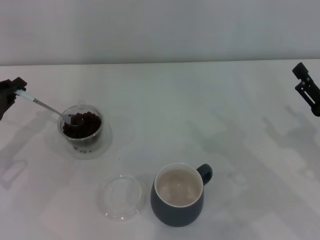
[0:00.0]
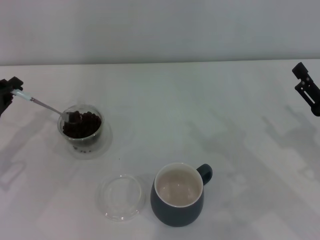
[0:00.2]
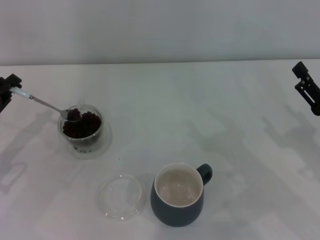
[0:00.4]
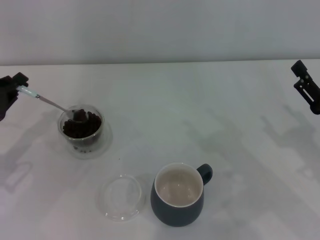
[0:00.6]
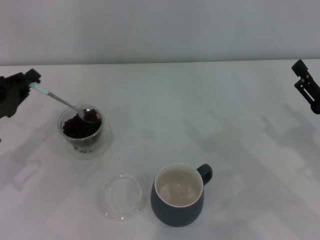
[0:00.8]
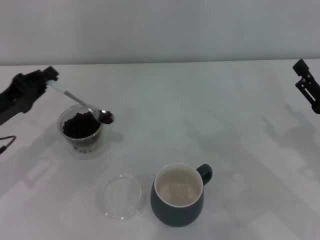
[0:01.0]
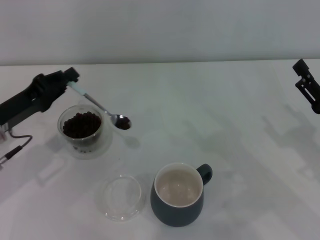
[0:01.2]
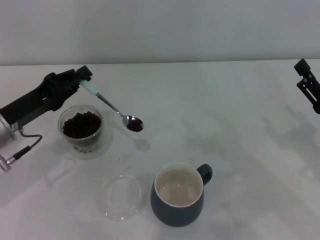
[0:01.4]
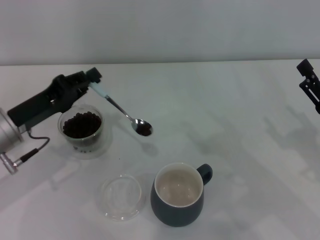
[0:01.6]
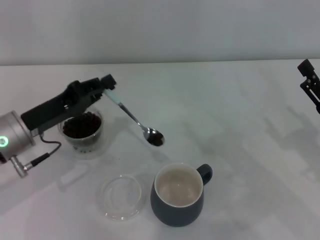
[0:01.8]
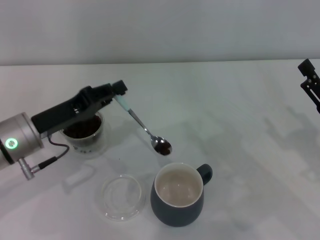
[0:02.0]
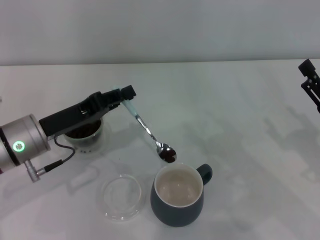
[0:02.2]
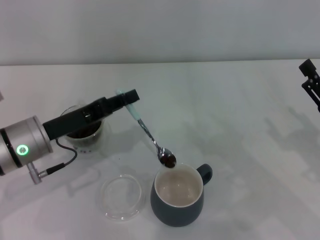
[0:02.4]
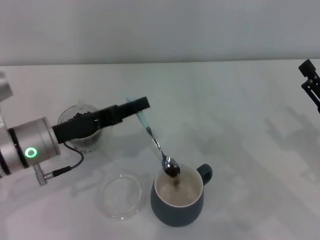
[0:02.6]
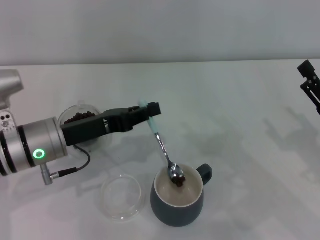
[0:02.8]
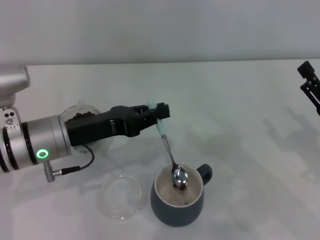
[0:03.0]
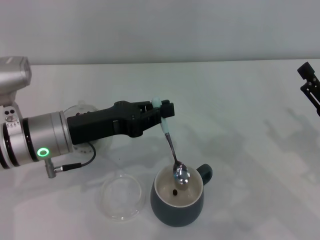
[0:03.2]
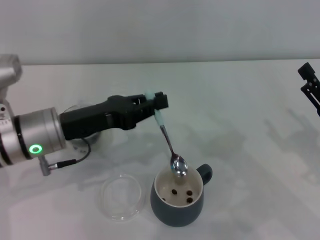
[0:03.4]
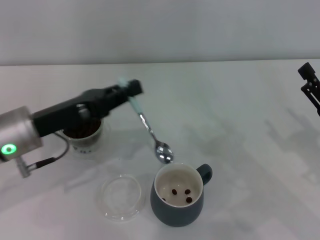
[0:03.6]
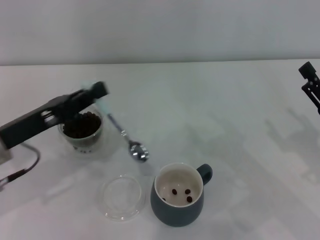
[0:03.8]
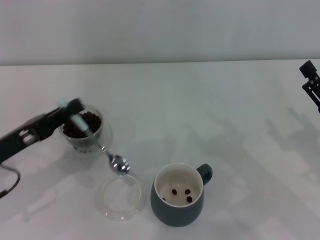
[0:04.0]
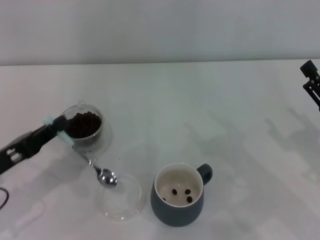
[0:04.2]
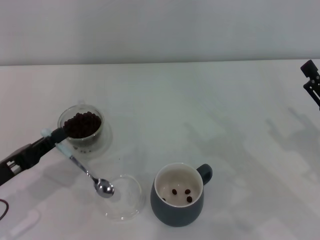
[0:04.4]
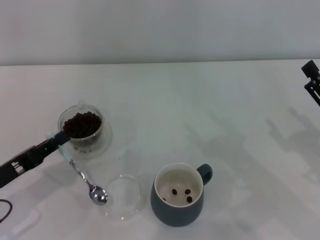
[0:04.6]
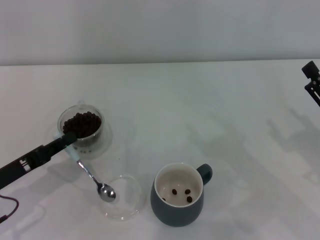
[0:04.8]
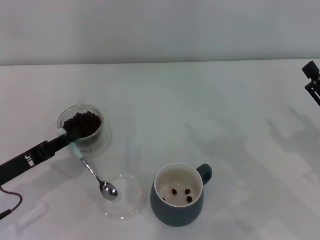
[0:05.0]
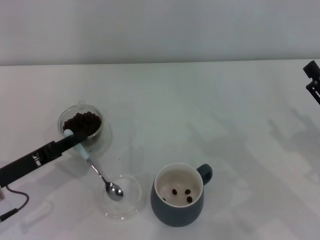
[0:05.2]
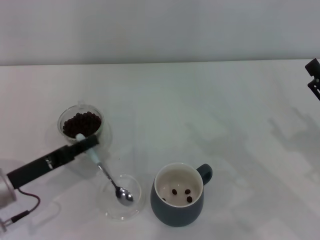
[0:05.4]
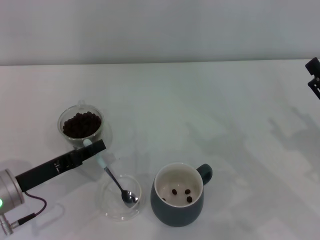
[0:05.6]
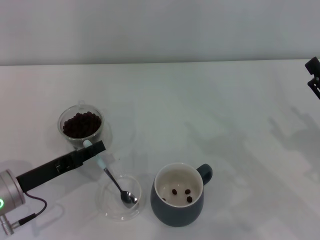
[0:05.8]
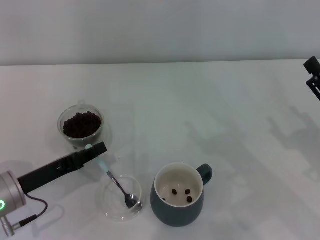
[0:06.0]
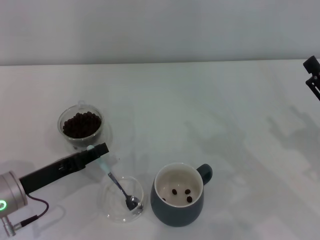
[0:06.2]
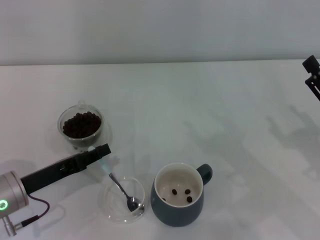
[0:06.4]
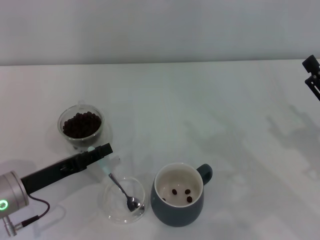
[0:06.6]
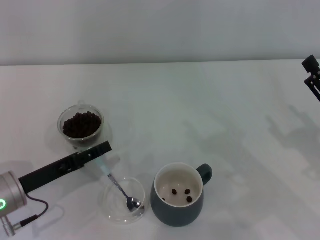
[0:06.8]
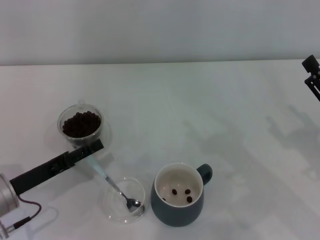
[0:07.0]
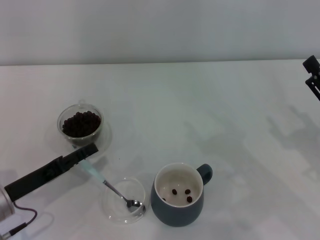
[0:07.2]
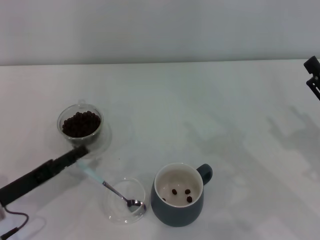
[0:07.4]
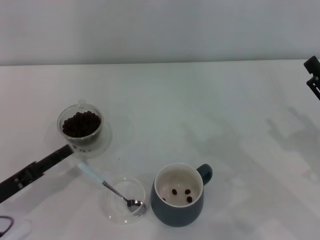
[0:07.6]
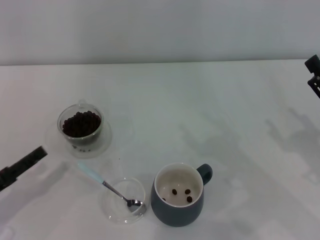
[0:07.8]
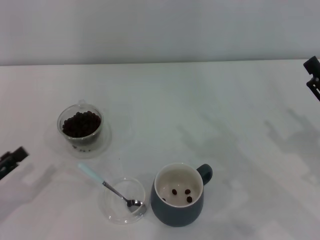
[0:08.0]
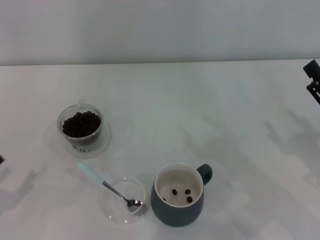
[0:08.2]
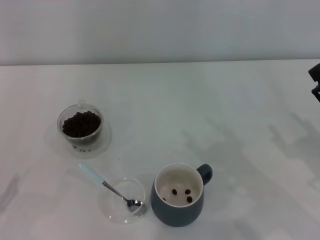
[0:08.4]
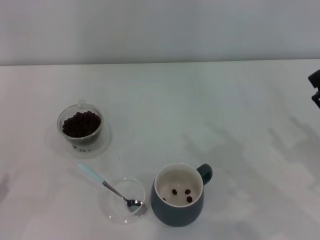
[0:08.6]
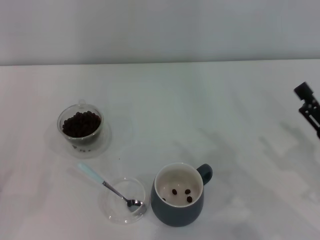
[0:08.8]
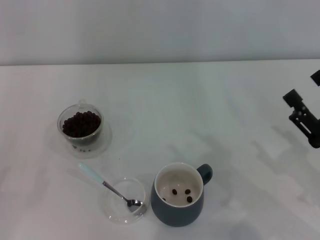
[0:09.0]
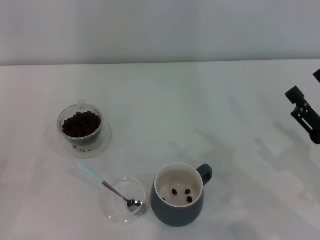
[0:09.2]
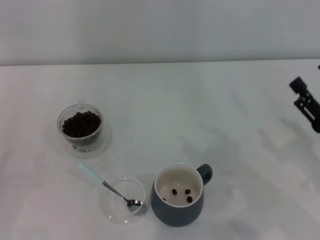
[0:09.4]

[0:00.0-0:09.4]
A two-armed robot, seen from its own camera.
Task of the whole recording: Use a blue spoon to take out the coffee beans from the glass and pour them into the gray cup.
0.0 to 1.6 s: The left gripper shifts roughly 10 cm to the right.
1.6 to 3.2 s: The left gripper goes roughly 5 cm to the right.
3.2 to 4.8 s: The left gripper shifts approximately 15 cm to the left, backward and downward.
4.8 to 6.2 s: The grippers stay close to where they were, moving slightly.
6.2 to 7.8 s: The left gripper shifts about 5 cm to the left, and opens its fingers.

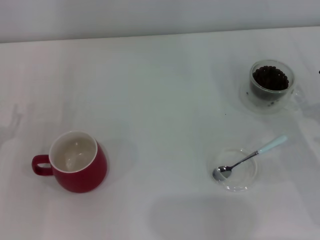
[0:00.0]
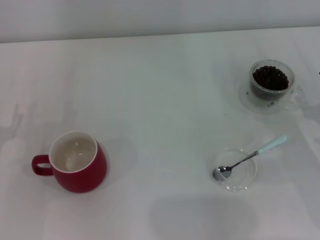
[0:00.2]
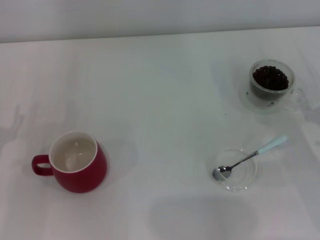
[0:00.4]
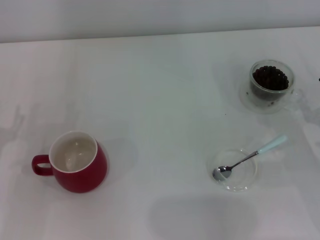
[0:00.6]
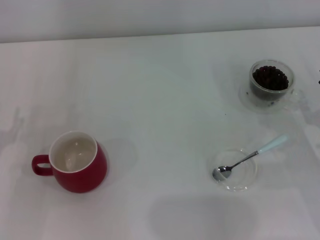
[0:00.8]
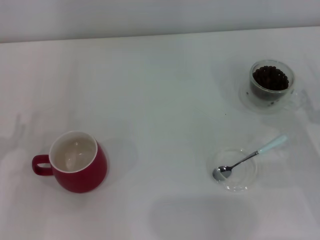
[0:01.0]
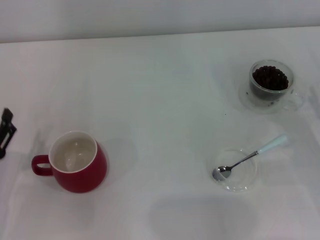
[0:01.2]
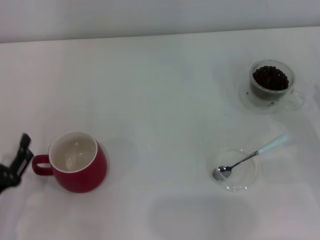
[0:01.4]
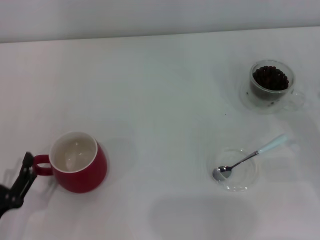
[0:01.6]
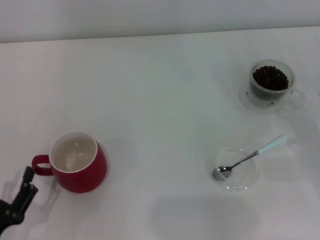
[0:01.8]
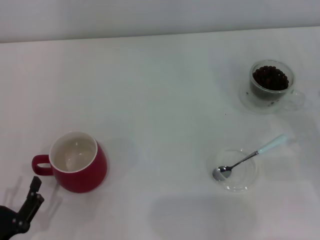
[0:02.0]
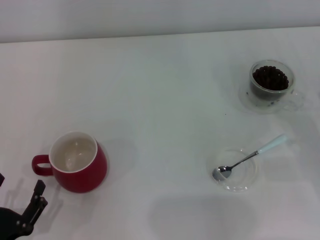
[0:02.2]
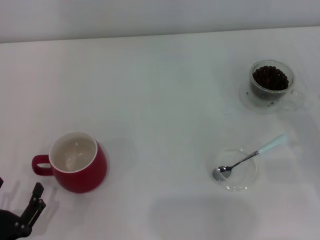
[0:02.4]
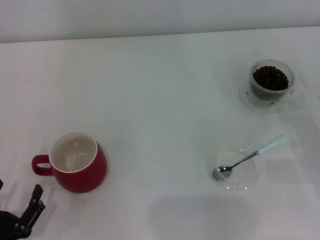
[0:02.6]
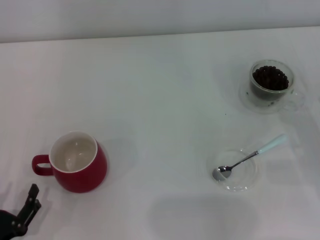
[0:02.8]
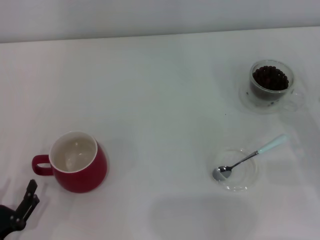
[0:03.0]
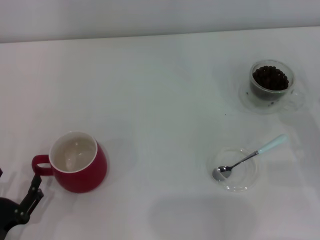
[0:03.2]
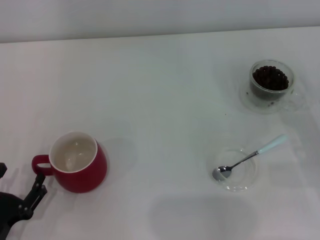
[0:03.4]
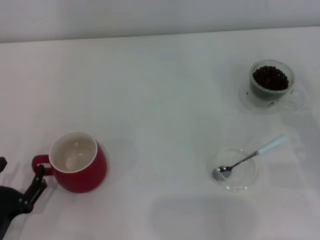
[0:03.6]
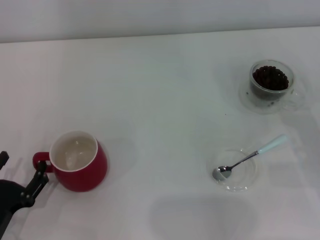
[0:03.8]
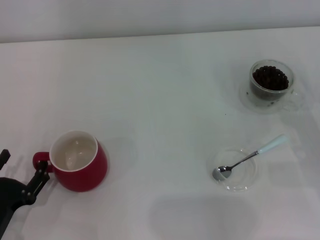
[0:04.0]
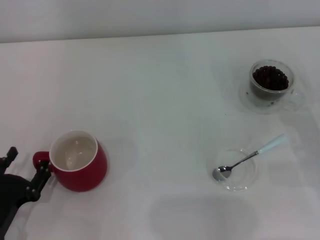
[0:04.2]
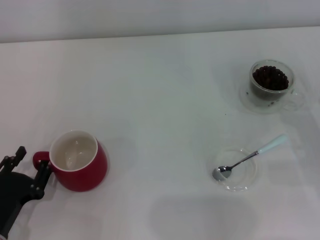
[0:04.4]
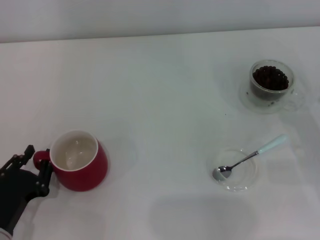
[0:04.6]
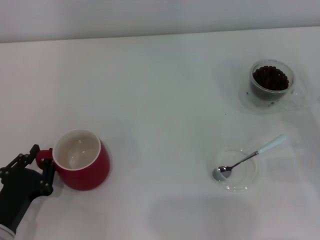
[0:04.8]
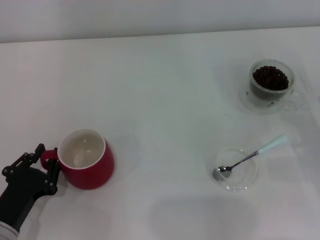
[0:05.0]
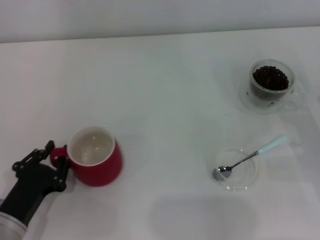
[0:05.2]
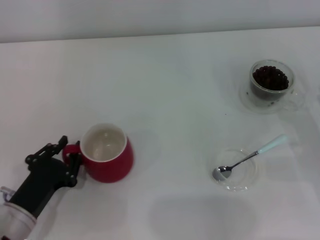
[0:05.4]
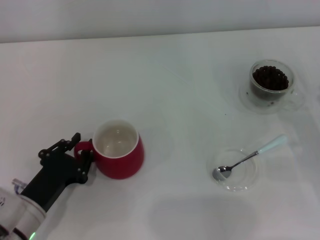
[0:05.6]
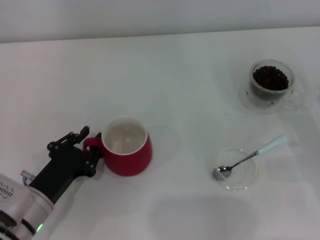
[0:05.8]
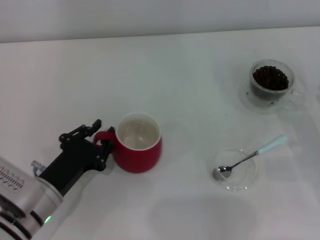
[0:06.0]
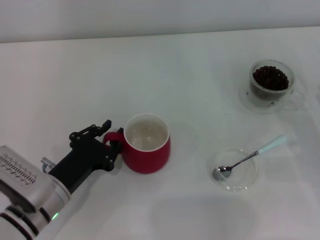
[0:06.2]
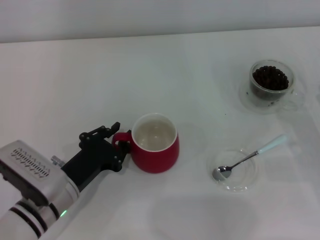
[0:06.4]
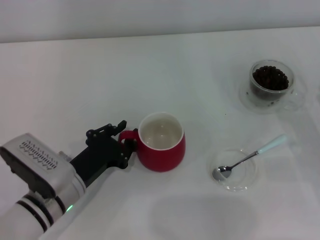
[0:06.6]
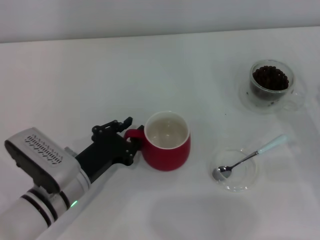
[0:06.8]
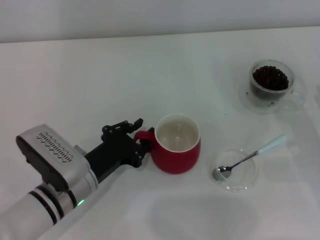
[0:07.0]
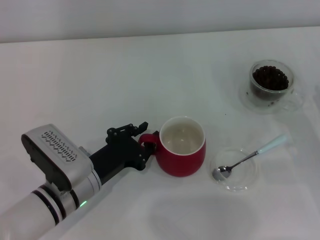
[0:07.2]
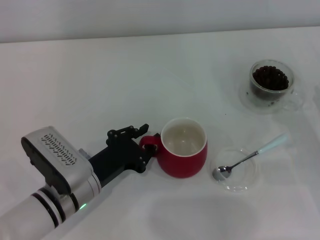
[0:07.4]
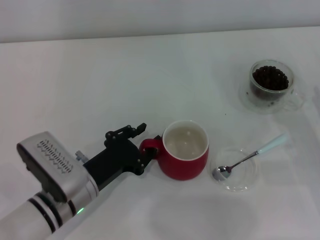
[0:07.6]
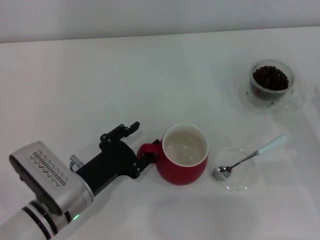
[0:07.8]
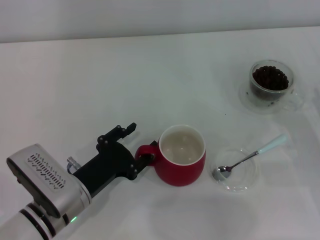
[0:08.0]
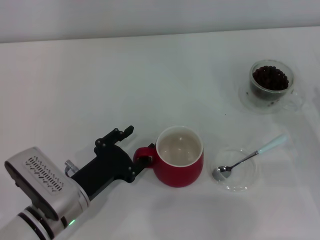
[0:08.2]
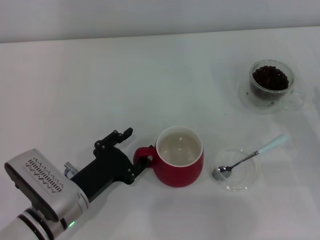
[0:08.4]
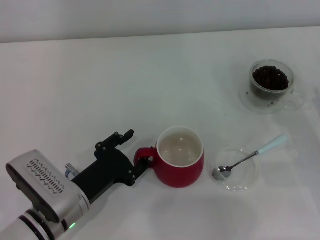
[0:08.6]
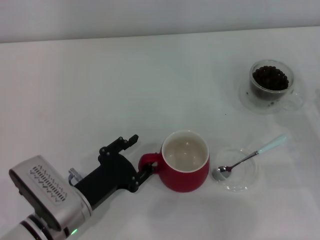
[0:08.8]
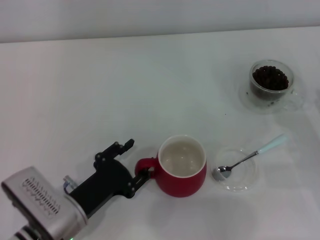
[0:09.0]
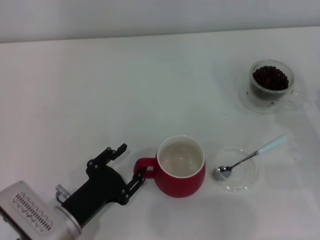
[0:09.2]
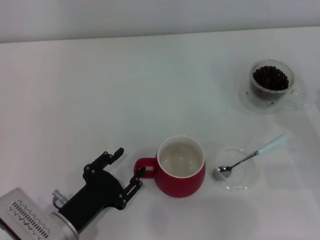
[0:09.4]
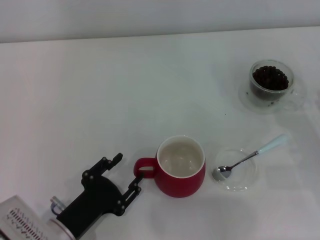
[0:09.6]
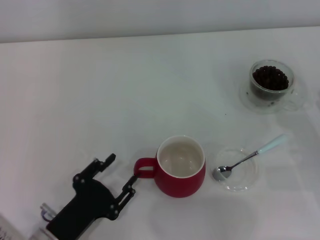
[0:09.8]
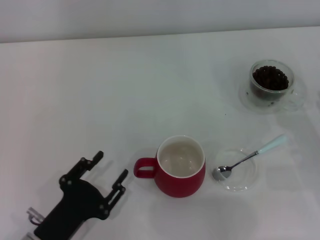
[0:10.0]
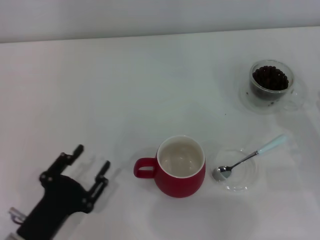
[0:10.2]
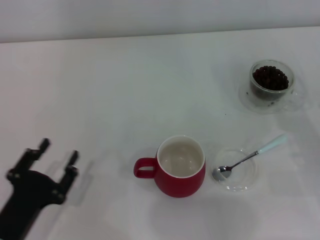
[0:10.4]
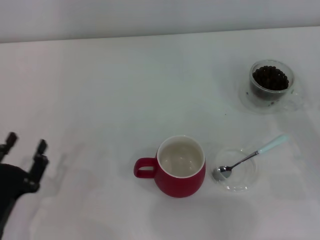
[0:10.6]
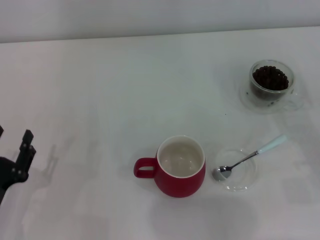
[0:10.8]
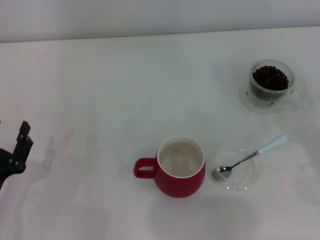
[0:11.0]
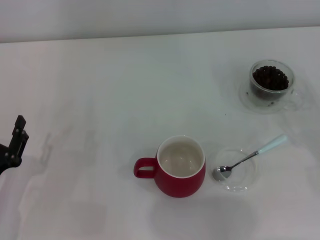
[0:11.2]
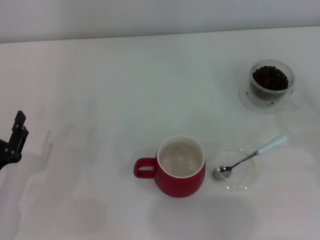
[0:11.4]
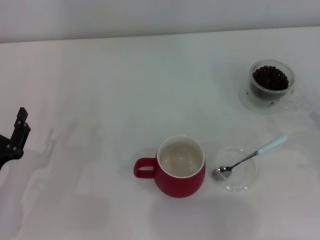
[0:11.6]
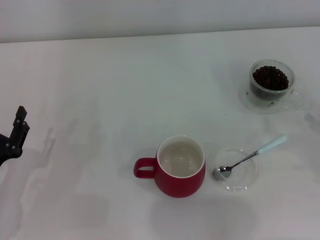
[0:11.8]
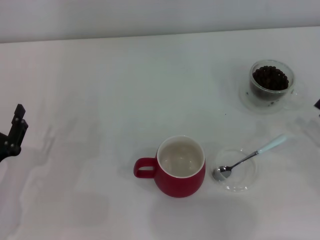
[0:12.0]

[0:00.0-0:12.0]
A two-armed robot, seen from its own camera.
Task of the whole recording: Use a blue spoon to take out the coffee beans from the glass and pour them into the red cup.
Step, 0.0 to 10.0 s: Move the cup to the center of view with the left gripper.
0.0 to 1.6 s: The left gripper shifts some 10 cm backward.
1.6 to 3.0 s: The grippers stay close to where they were, moving slightly.
3.0 to 4.4 s: The left gripper shifts some 5 cm forward.
4.4 to 6.0 s: The left gripper travels to the right and forward by some 10 cm, and closes up.
6.0 to 7.6 s: The left gripper shifts by about 5 cm.
7.6 to 9.0 s: The grippers make only small movements.
9.0 to 10.4 s: The left gripper goes some 10 cm to the left and backward.
10.4 to 12.0 s: The left gripper shifts some 5 cm forward.

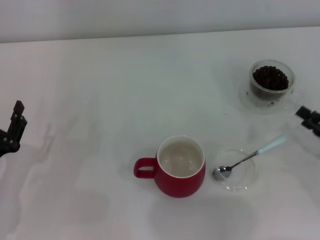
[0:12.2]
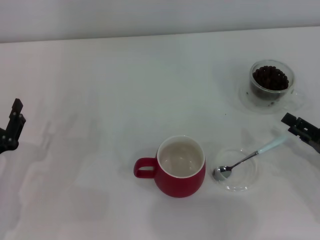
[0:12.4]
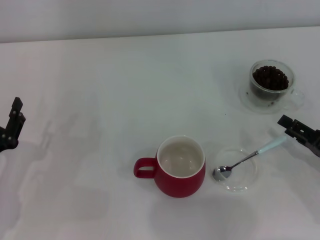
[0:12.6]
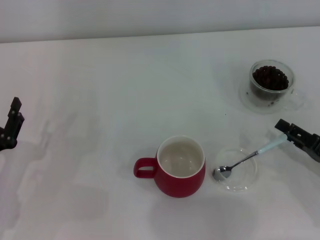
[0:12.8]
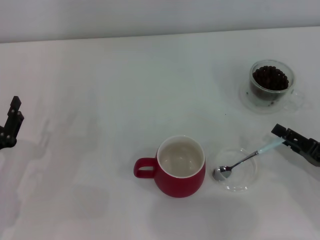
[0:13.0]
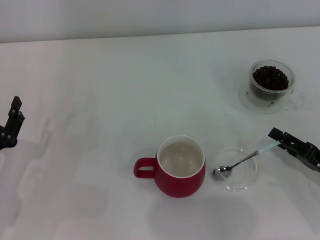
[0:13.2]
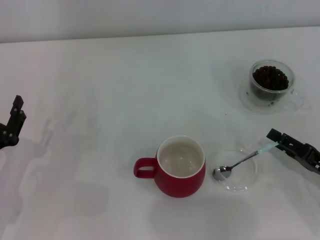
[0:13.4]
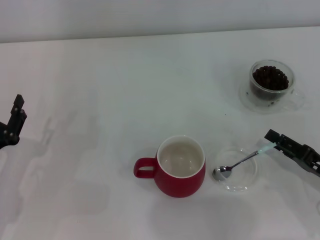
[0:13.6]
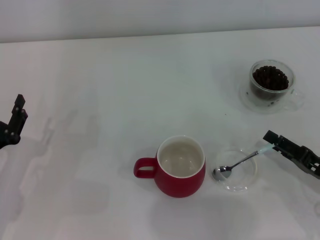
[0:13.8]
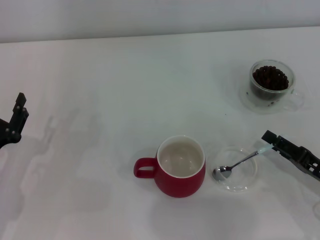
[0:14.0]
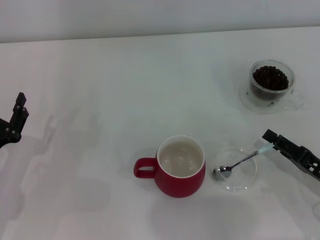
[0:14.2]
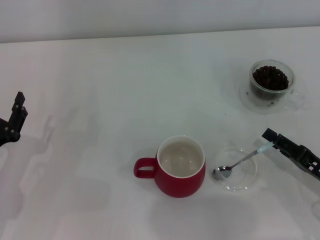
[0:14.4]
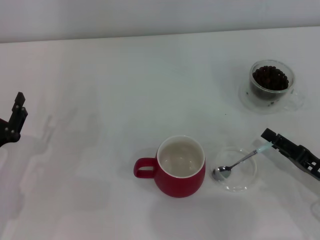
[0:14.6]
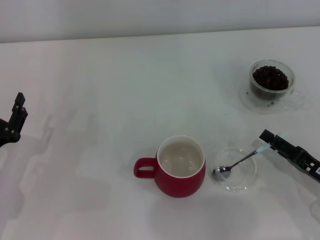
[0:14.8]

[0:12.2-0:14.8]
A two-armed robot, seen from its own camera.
Task of the whole recording: Use a blue spoon to take out the coffee beans from the glass and pour them into the red cup.
12.2 to 13.4 s: The grippers make only small movements.
13.4 to 14.8 s: There are only small adjustments of the grippers.
